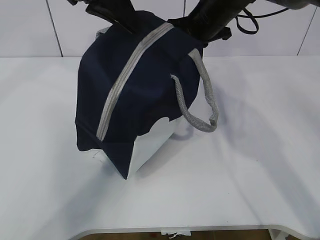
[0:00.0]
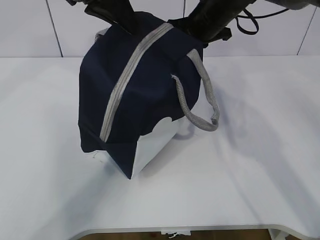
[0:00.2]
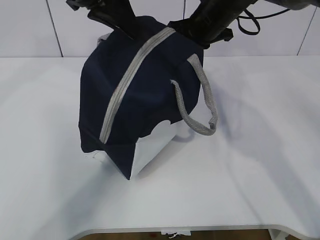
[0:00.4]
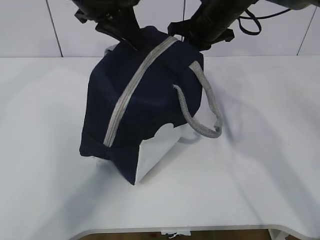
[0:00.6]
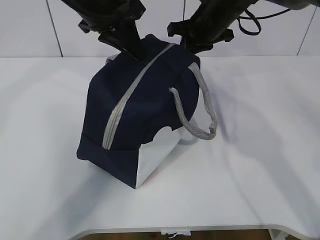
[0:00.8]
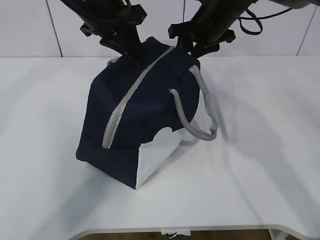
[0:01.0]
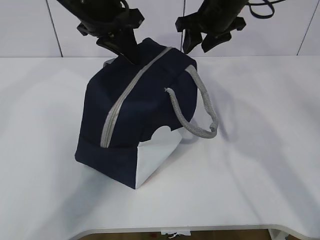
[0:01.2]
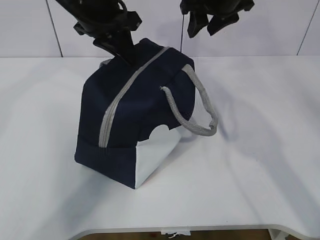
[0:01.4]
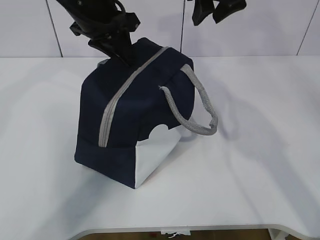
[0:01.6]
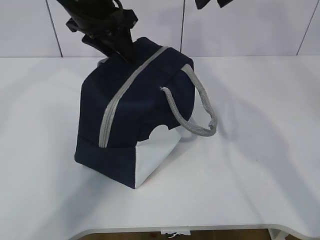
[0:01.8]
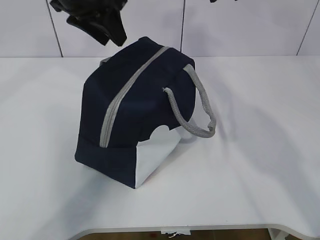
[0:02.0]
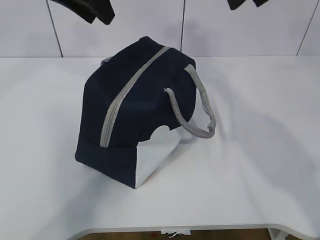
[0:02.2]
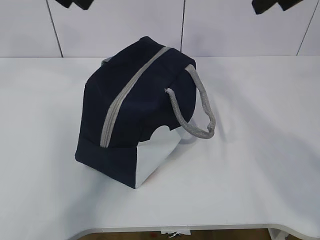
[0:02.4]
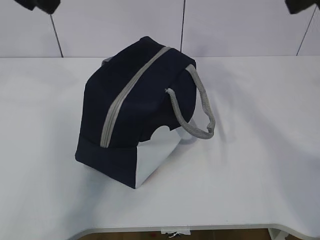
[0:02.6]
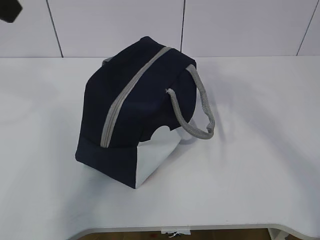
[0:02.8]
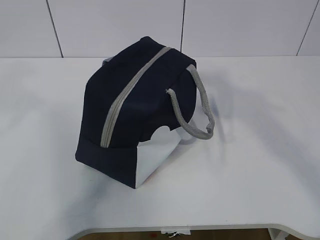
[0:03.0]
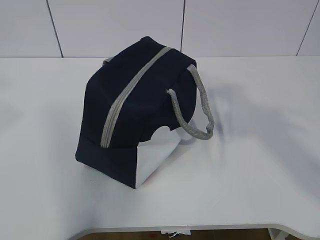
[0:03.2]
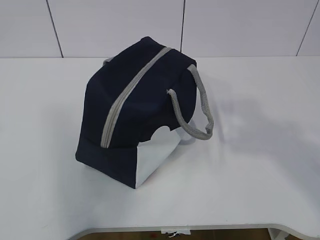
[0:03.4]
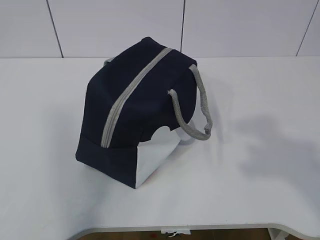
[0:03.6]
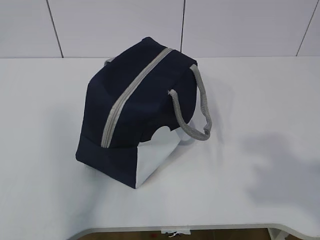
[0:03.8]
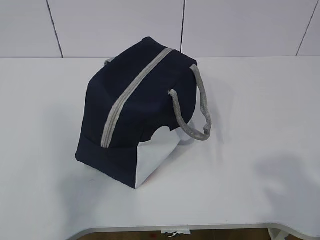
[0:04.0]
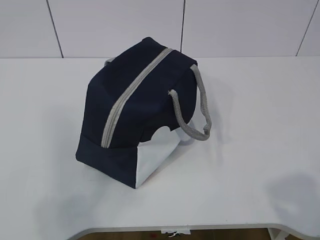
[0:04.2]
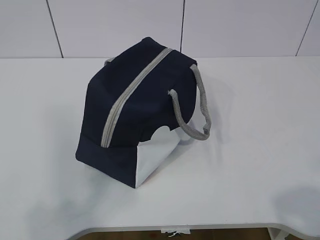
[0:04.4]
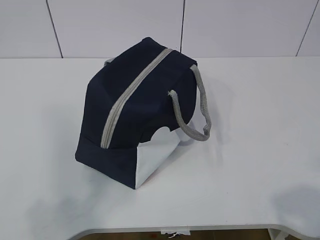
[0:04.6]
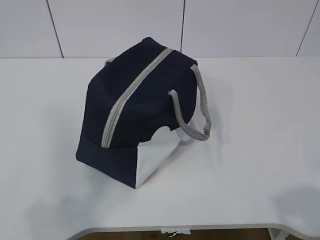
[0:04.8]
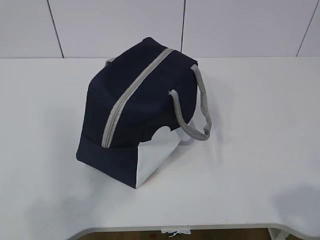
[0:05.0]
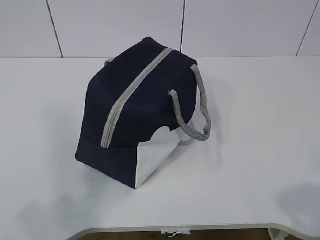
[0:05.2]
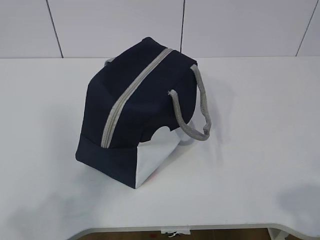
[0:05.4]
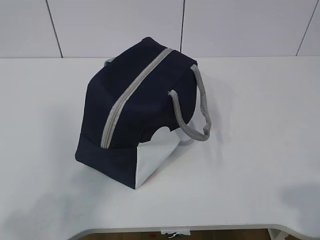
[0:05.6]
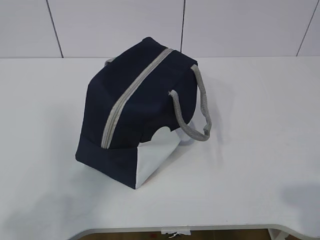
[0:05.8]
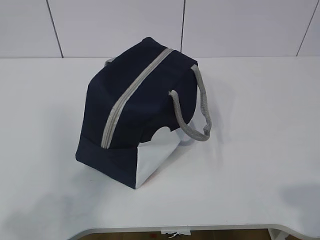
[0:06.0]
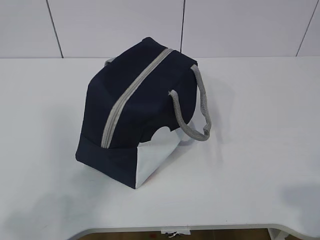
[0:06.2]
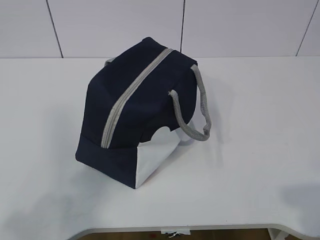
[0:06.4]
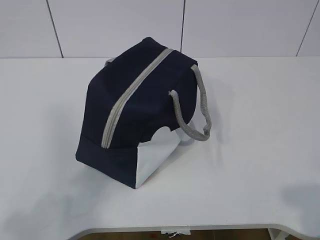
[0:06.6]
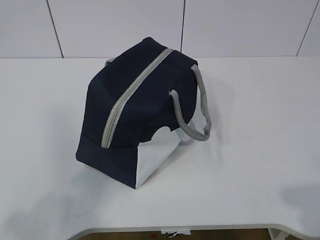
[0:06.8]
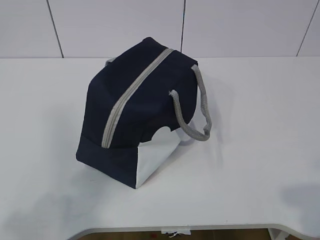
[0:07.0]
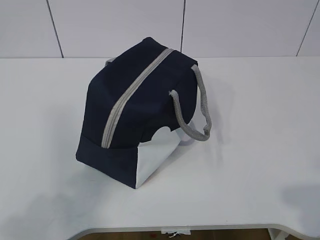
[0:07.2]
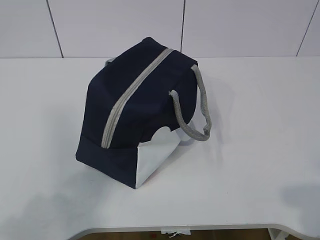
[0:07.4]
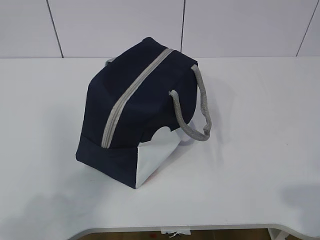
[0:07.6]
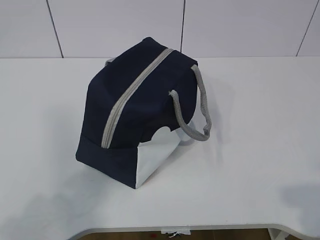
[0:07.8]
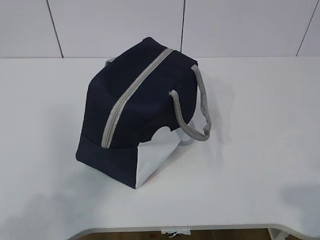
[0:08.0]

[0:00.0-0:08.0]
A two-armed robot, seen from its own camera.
0.0 to 1.6 s: The right gripper moves upward, some 5 cm, and opens. Meanwhile the left gripper travels downward by roughly 5 cm.
1.6 to 3.2 s: The right gripper shifts about 35 cm backward. The left gripper shifts about 35 cm backward, to the left and upward, and opens its fingers.
3.2 to 4.8 s: The right gripper is displaced downward and backward by roughly 20 cm; the left gripper heads downward, backward and to the left, covering roughly 25 cm.

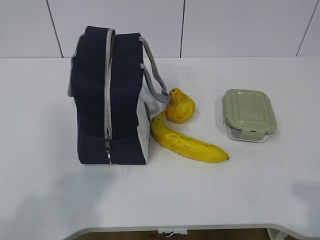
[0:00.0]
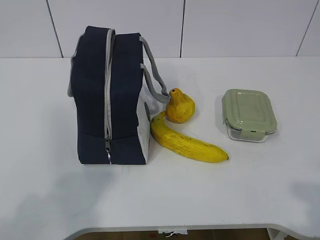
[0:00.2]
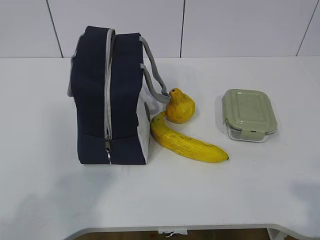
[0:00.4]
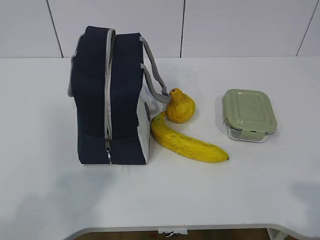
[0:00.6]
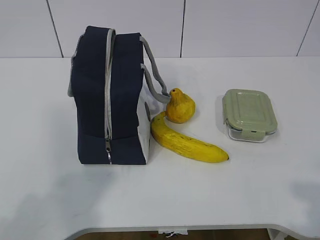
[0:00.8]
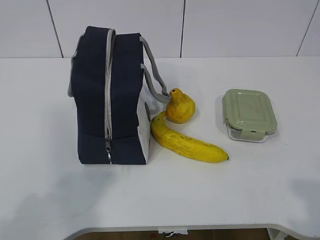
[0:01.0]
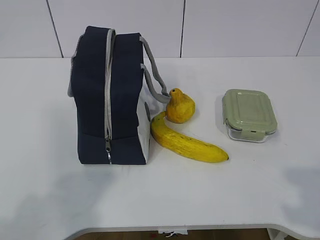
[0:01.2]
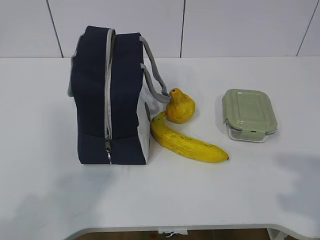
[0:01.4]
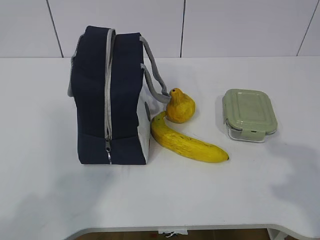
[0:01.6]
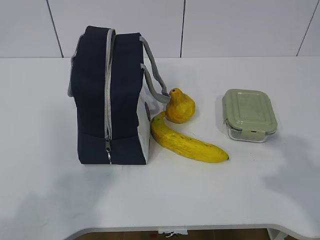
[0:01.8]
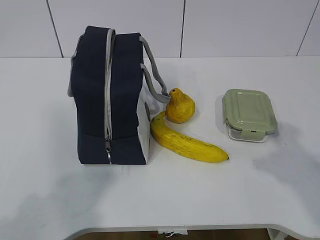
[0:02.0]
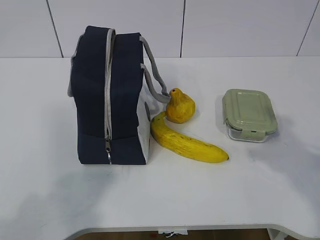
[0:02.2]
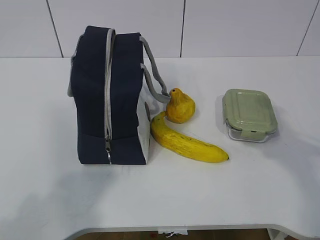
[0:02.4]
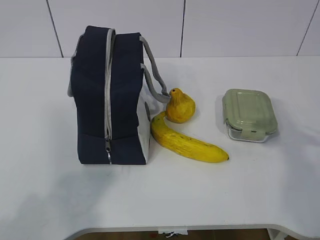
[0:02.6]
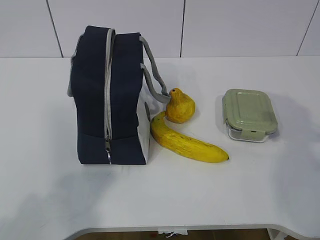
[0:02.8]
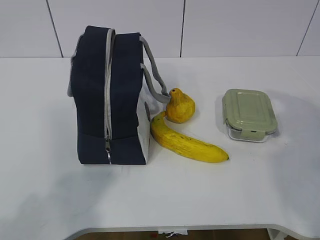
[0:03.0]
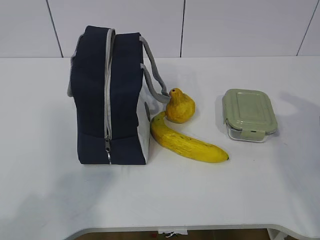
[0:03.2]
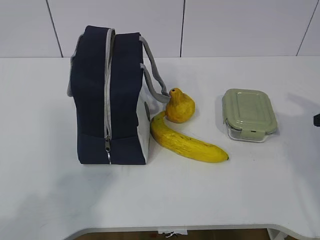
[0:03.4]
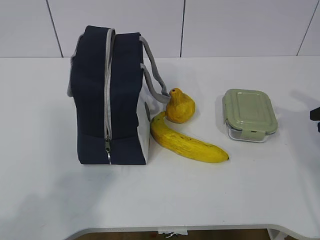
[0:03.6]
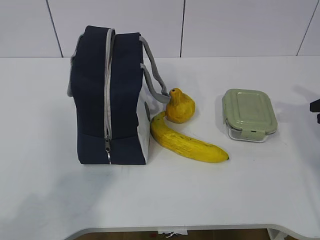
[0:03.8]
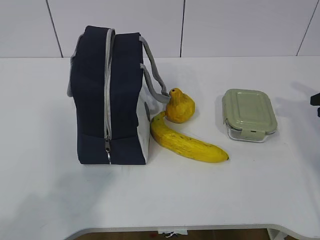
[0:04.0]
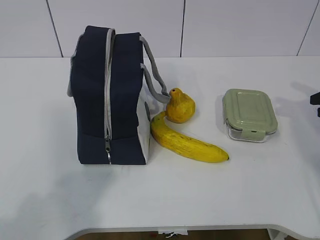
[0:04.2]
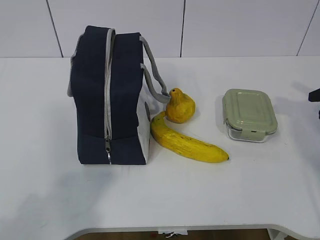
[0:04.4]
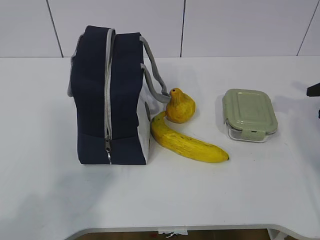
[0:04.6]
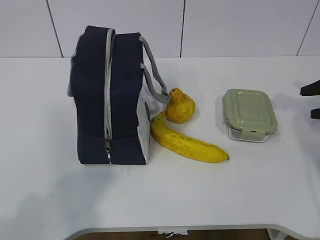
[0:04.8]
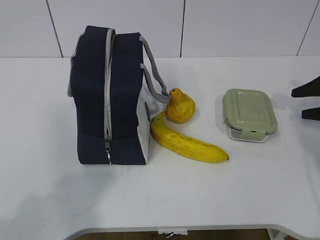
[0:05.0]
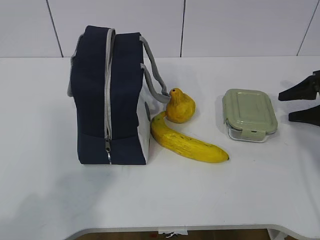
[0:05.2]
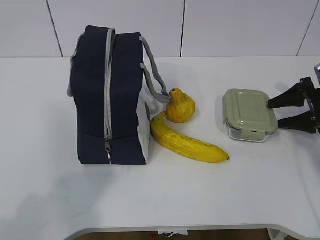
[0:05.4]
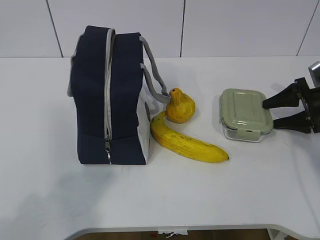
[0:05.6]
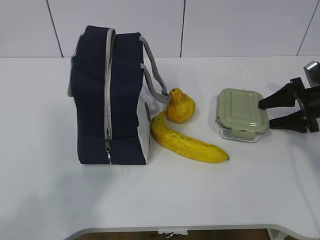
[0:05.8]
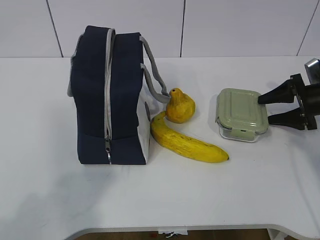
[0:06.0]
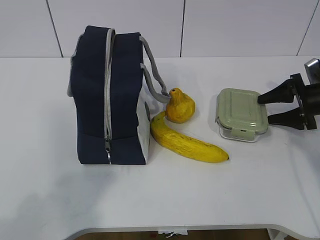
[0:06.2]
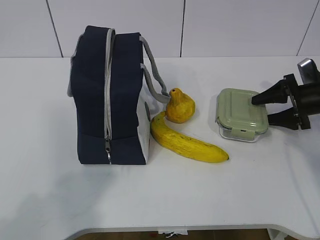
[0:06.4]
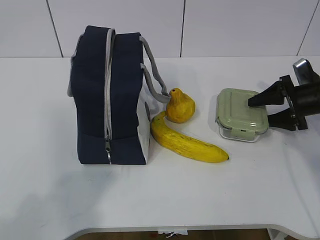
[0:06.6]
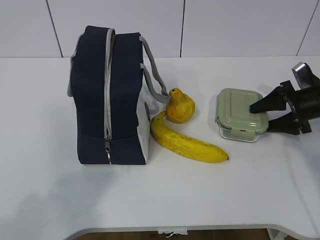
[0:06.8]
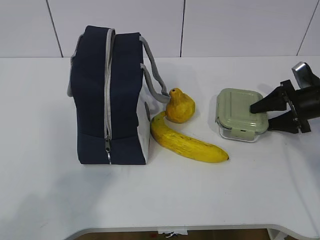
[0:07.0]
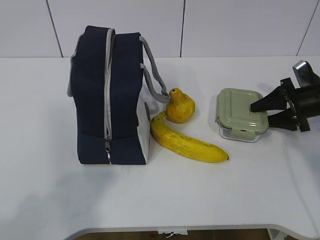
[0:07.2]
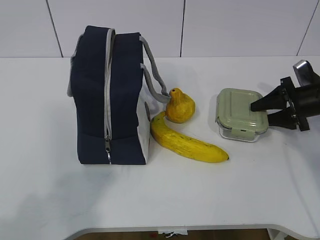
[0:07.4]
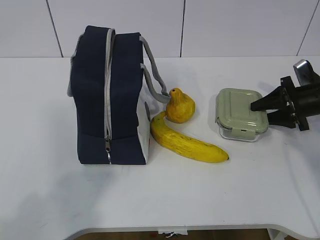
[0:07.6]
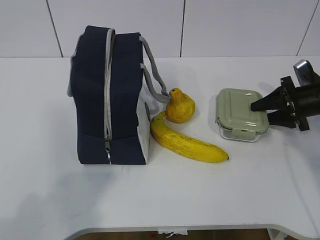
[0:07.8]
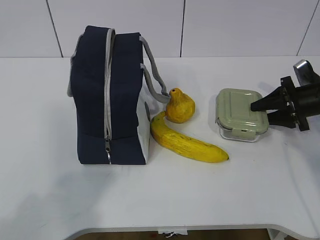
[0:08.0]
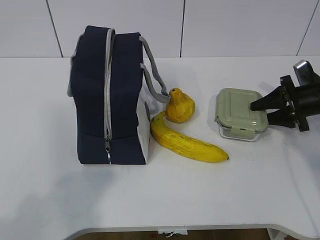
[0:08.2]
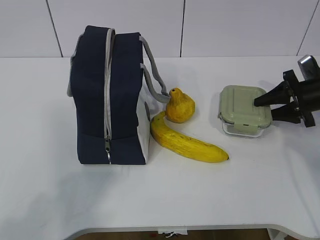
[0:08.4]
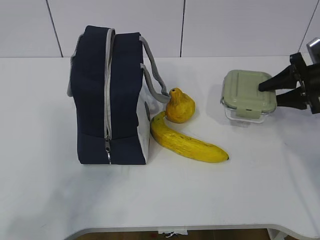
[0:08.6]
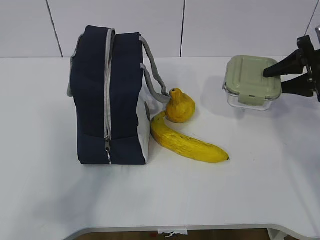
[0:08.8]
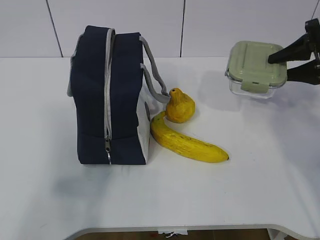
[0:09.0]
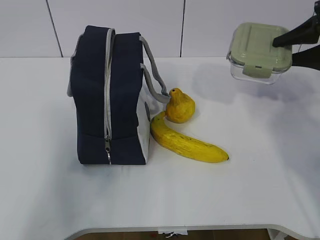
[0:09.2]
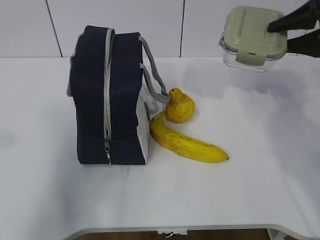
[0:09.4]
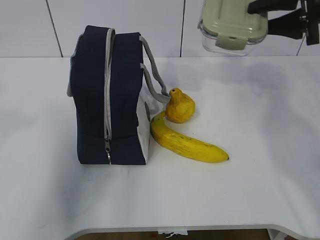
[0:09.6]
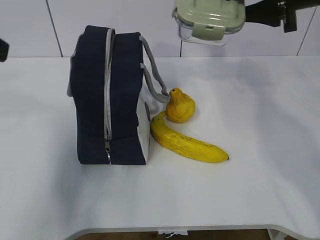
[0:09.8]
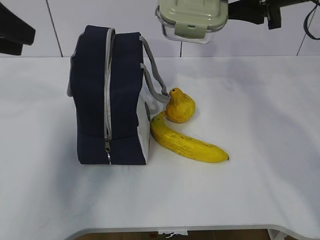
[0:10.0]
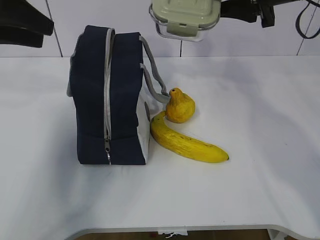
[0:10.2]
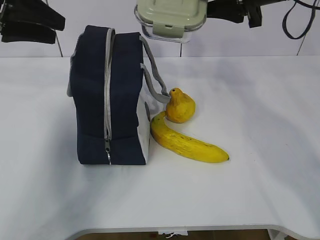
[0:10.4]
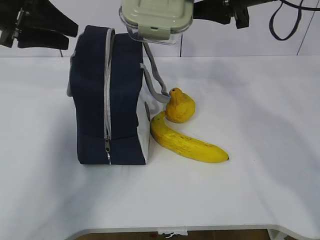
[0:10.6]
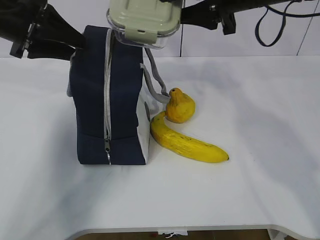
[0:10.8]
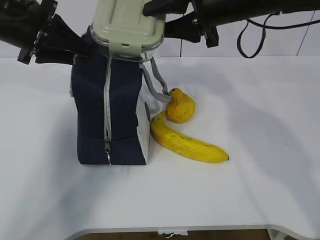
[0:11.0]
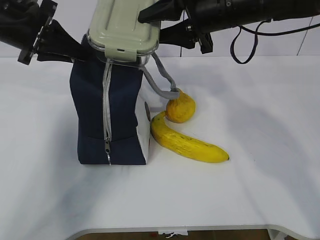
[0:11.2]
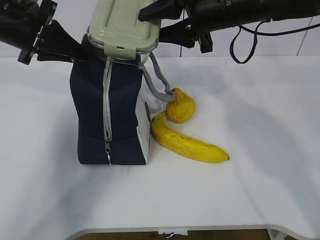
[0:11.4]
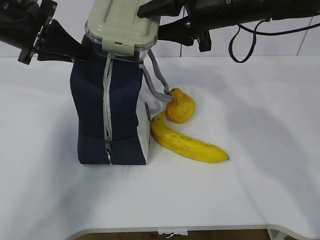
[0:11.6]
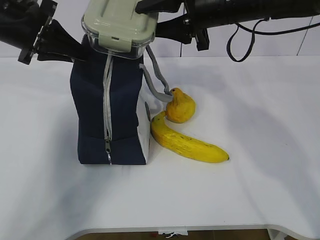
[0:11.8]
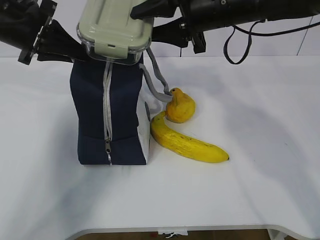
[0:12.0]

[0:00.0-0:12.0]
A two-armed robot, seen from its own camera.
Step, 0.0 to 6.2 s: Grab the lunch box with your right hand.
Step, 6.4 to 9.0 s: Grab the lunch bag with your left hand.
1.6 to 3.0 s: The right gripper is displaced forward by some 20 cm.
4.4 to 6.0 s: The right gripper goes about 10 cm forward, downward and to the left.
6.0 to 7.6 s: There are only small adjustments of the grippers.
7.6 to 9.0 s: The right gripper goes approximately 10 cm upward.
9.0 to 10.4 s: The left gripper travels forward by approximately 30 cm, while the right gripper goes some 20 cm to the left and upward.
10.4 to 12.0 s: The right gripper travels to the left by approximately 10 cm. Meanwhile the left gripper shifts by approximately 5 cm, and closes.

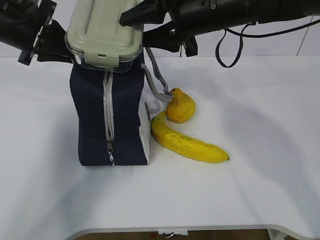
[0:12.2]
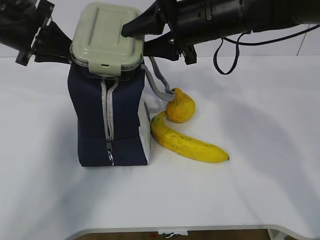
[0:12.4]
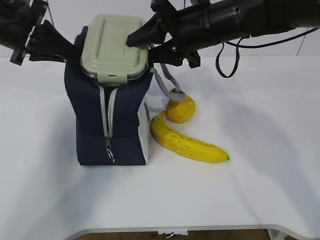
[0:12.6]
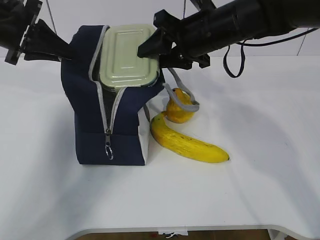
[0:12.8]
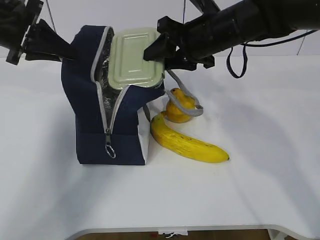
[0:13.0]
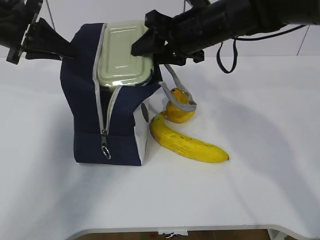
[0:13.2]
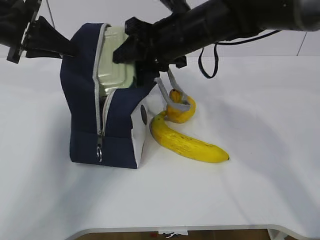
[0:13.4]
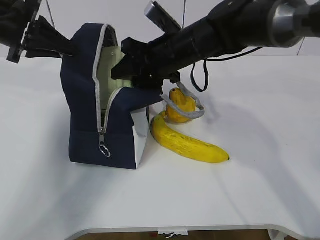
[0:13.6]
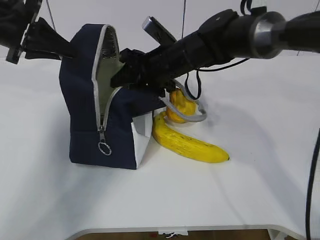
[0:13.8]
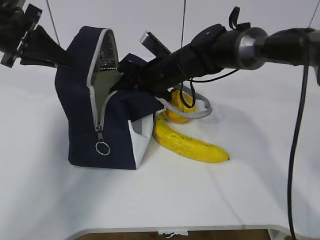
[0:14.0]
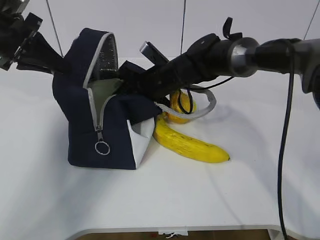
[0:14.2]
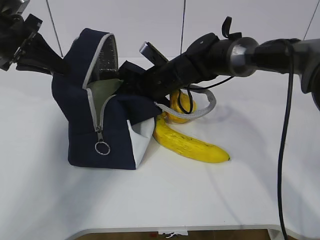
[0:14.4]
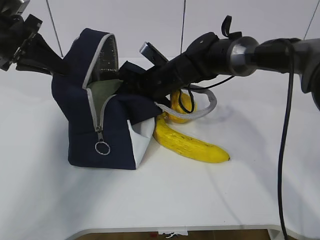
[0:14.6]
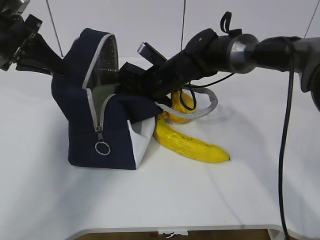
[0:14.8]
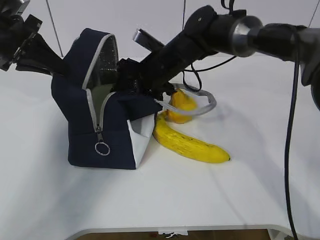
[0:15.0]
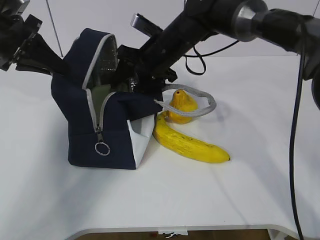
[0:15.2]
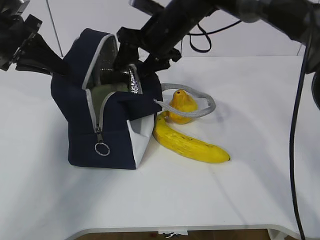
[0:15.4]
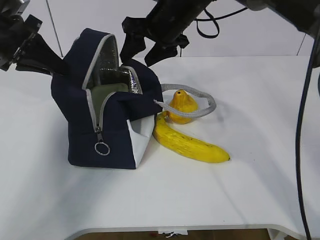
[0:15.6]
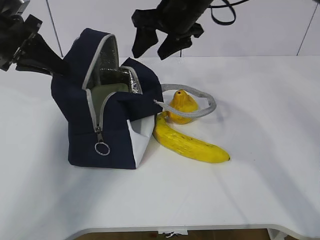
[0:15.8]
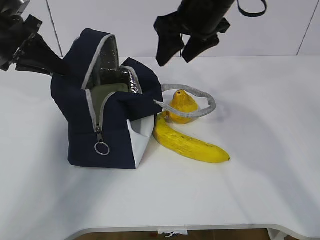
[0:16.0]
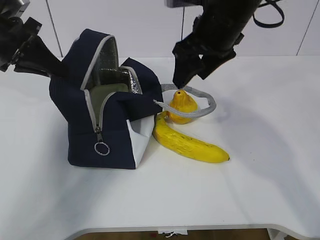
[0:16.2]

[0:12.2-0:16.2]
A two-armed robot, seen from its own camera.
Step, 12.6 to 14.8 s: Grab the banana with your right hand.
12.2 to 13.6 s: The right gripper shifts roughly 10 cm downward.
13.6 to 14.8 s: The right gripper goes about 10 cm downward.
14.8 to 16.2 s: The right gripper heads upward, backward and to the right, covering approximately 20 cm.
